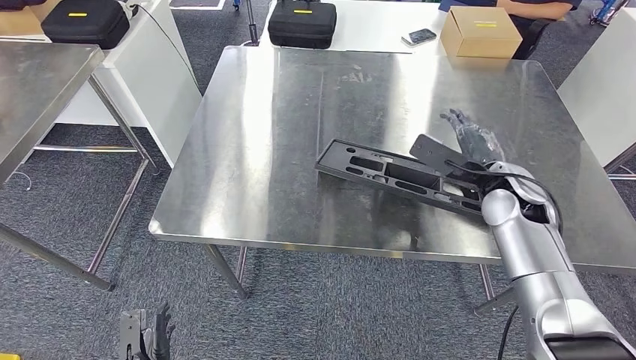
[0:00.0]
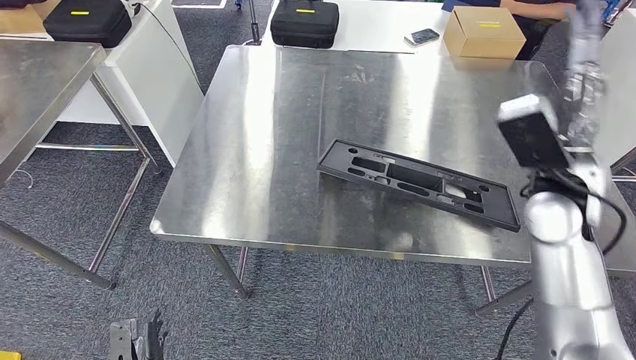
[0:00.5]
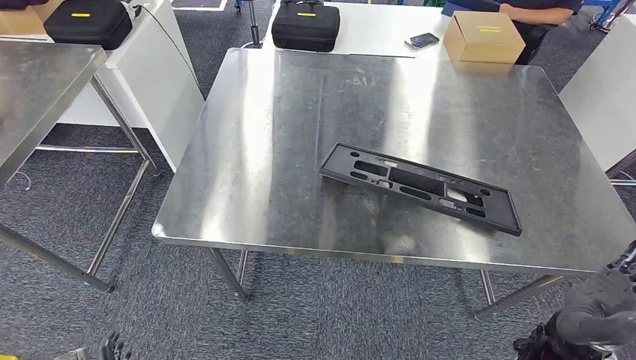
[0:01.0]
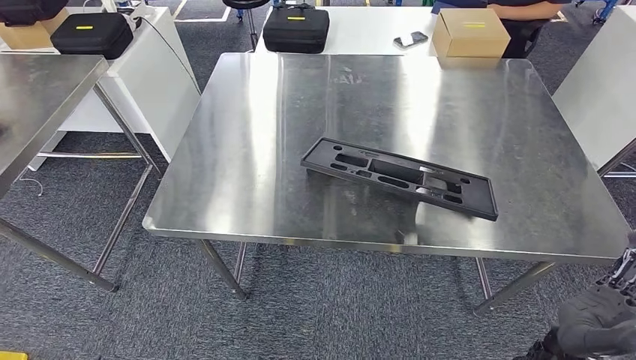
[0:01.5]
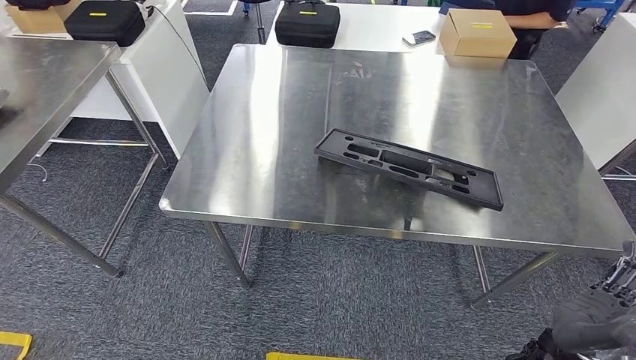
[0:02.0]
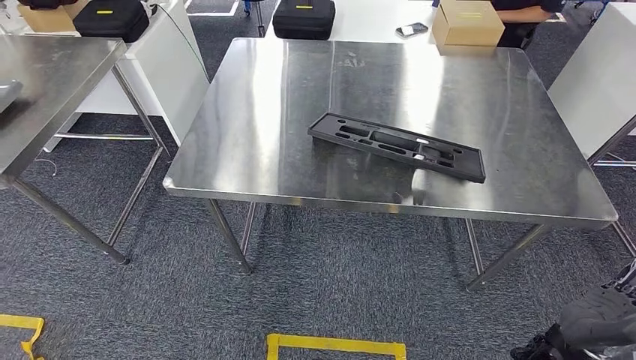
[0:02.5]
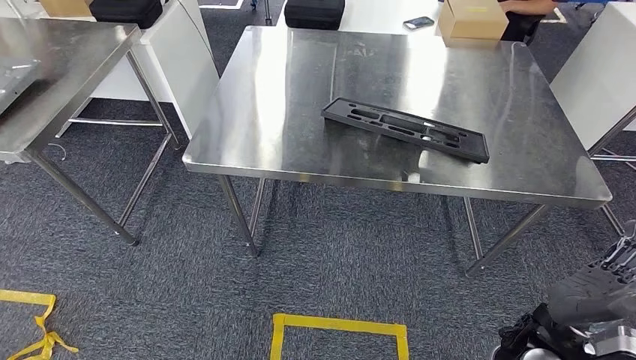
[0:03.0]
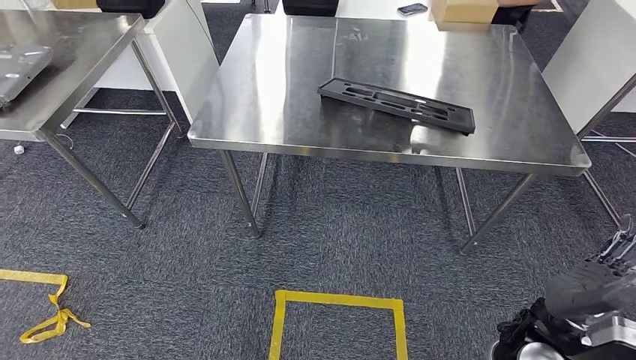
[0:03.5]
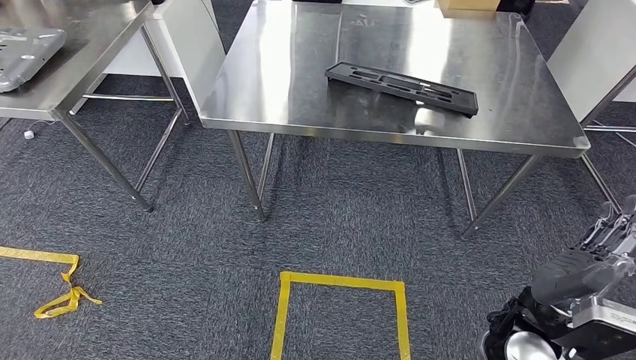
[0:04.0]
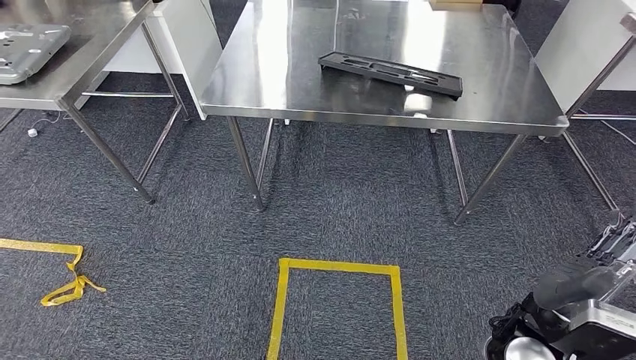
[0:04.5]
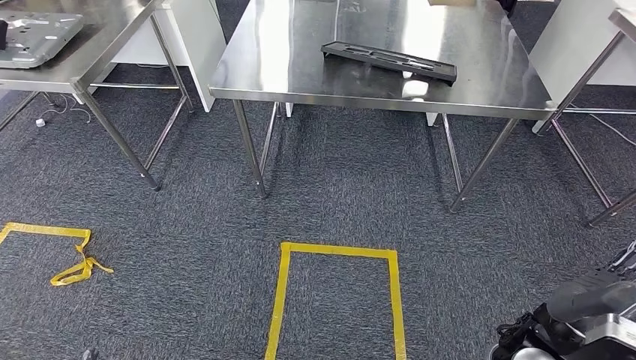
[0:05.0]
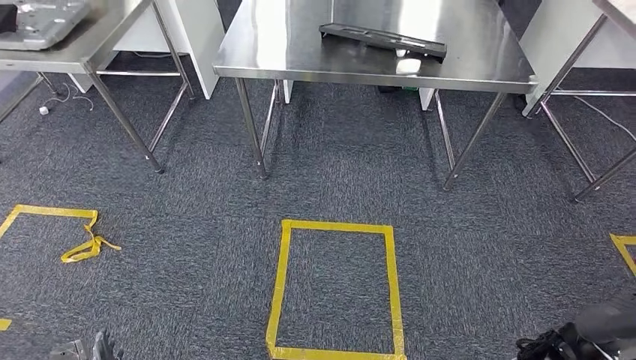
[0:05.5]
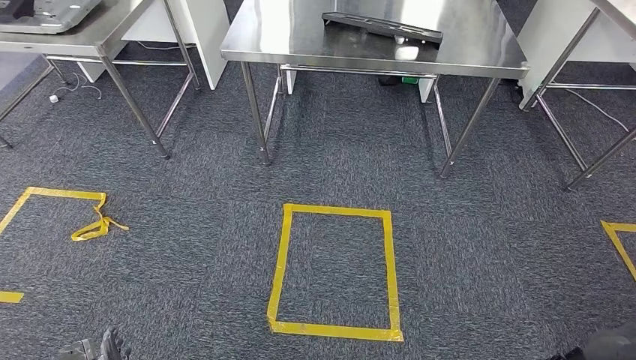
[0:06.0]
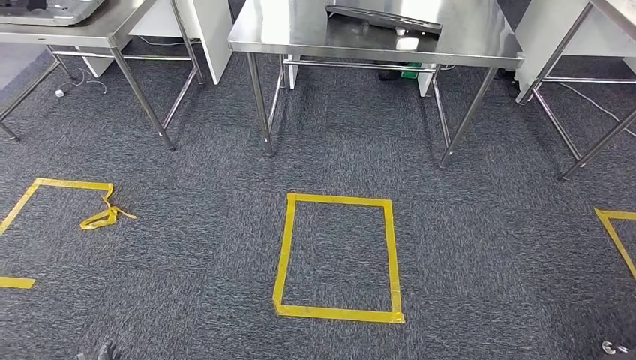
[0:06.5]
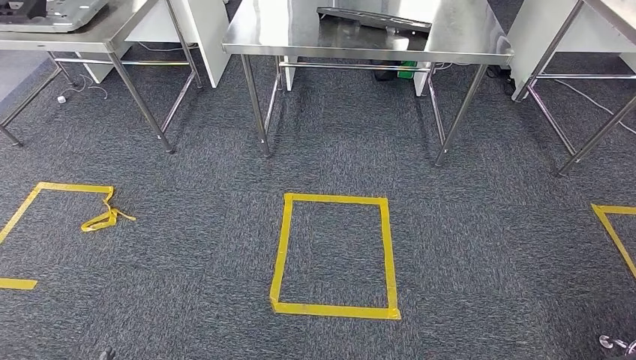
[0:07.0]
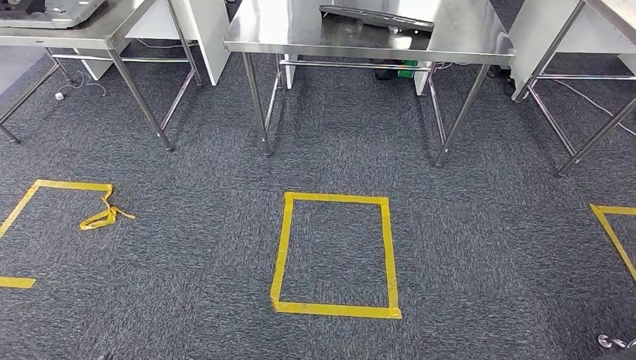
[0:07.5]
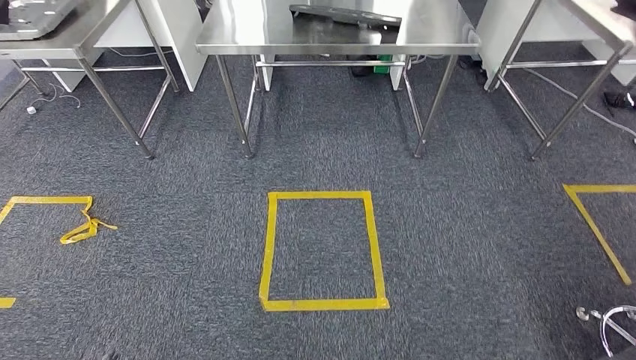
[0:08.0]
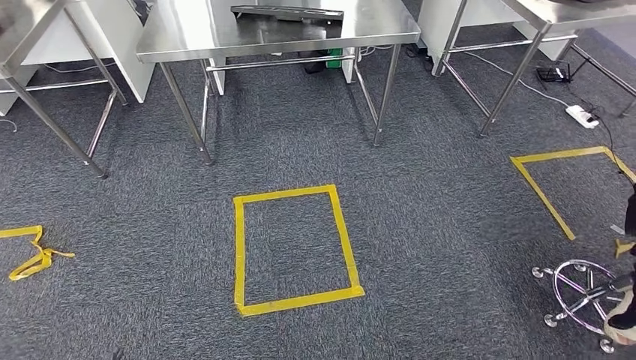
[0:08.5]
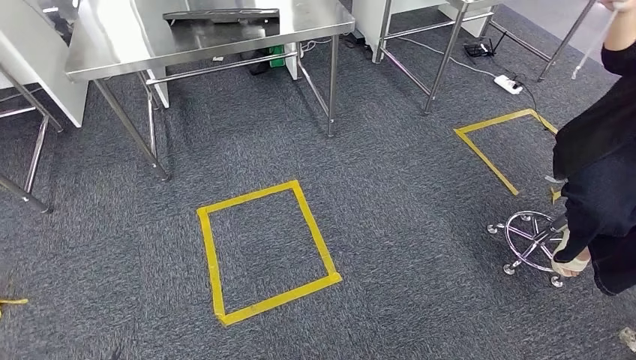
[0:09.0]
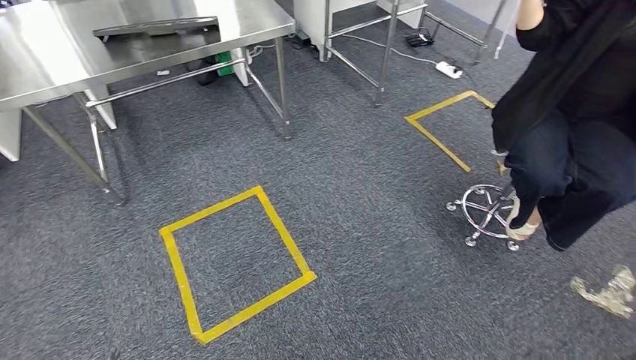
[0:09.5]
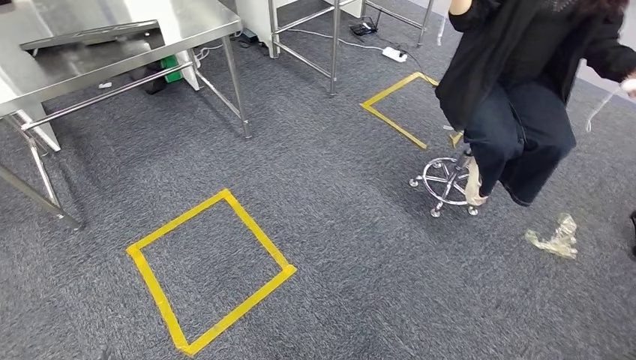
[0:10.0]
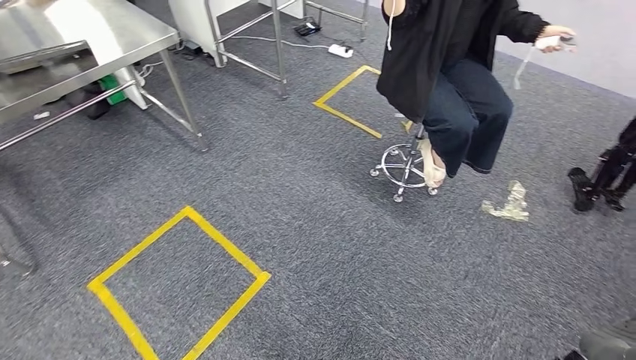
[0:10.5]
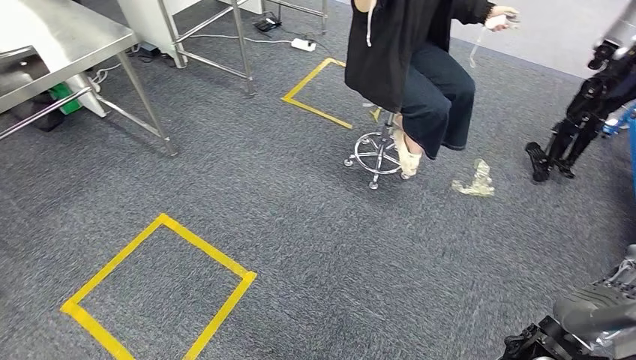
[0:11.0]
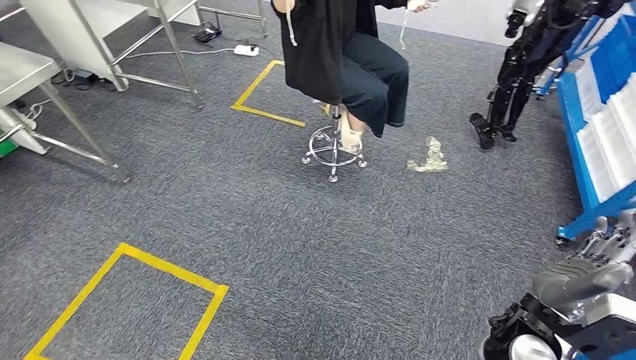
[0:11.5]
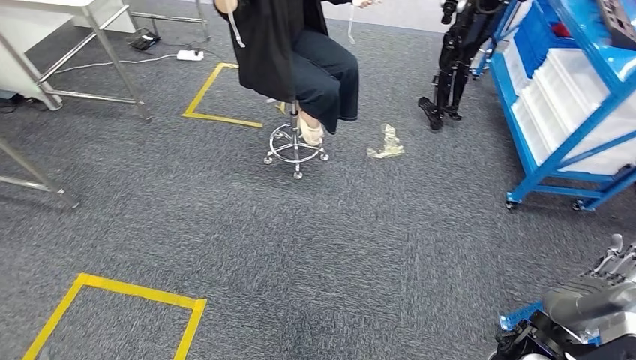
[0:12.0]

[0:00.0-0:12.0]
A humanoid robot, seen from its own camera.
Step, 0:00.0 to 0:03.0: Insert the large material into the corresponding slot on the workbench.

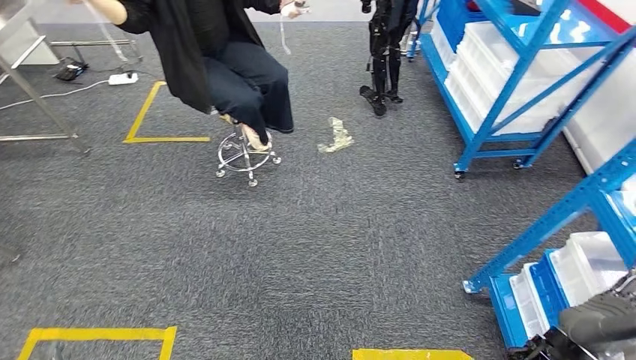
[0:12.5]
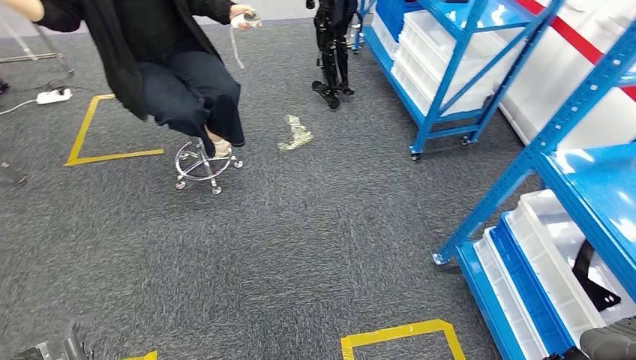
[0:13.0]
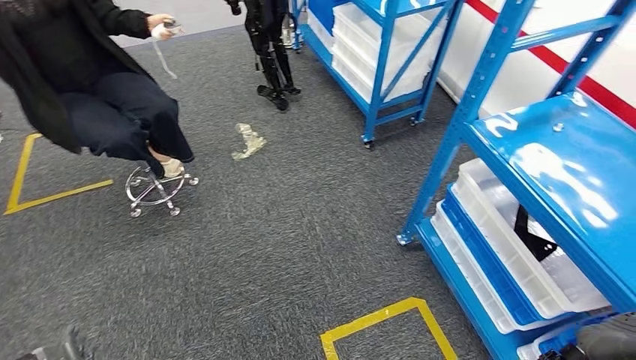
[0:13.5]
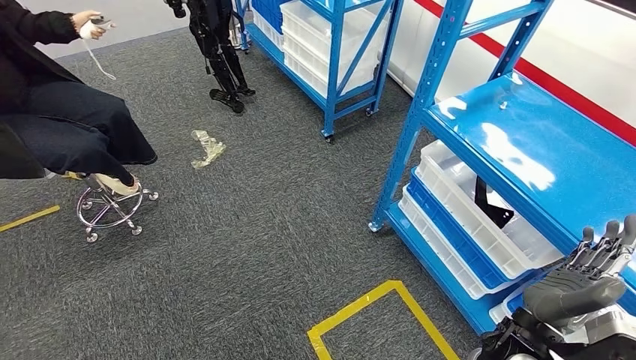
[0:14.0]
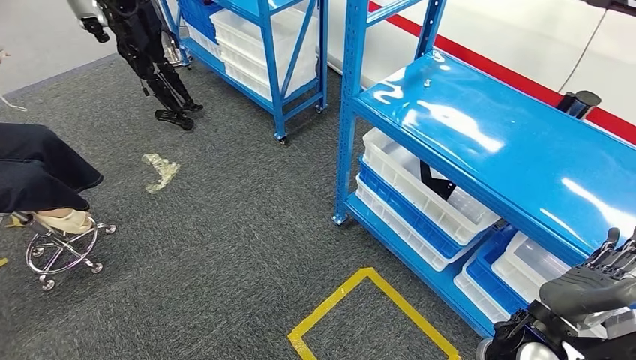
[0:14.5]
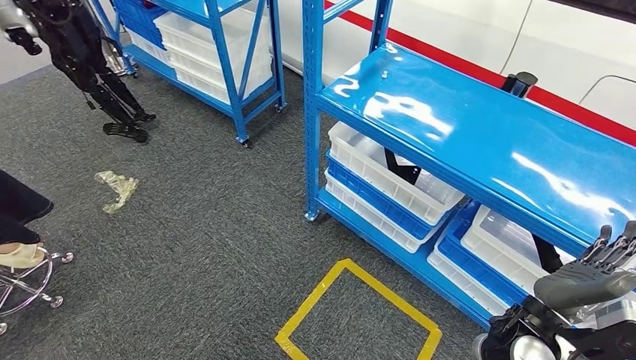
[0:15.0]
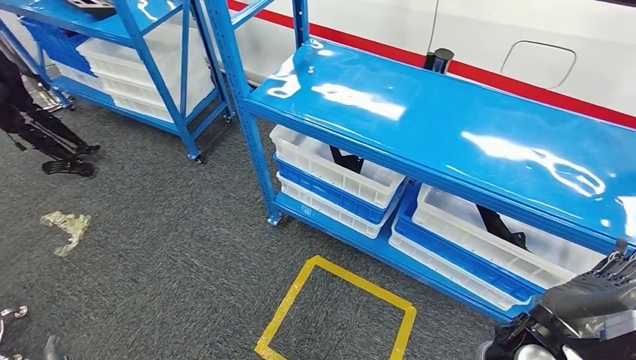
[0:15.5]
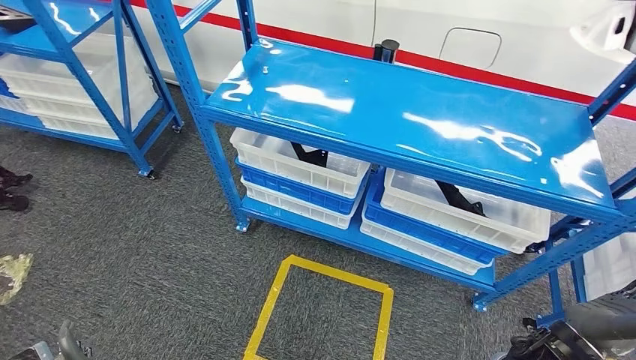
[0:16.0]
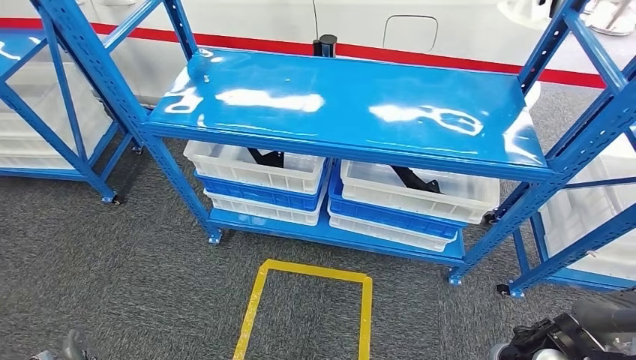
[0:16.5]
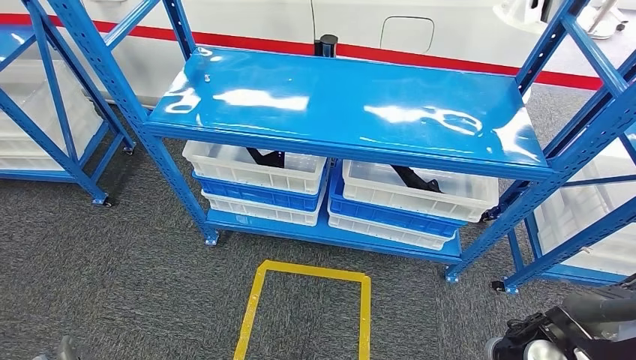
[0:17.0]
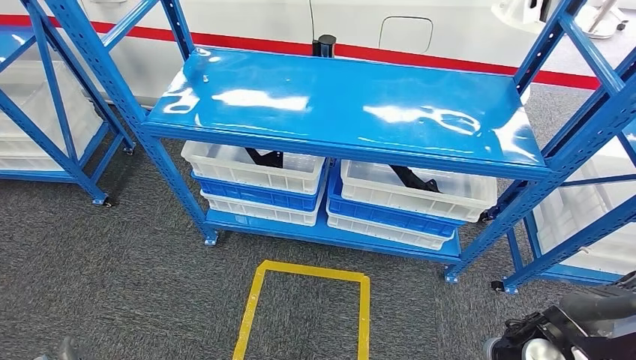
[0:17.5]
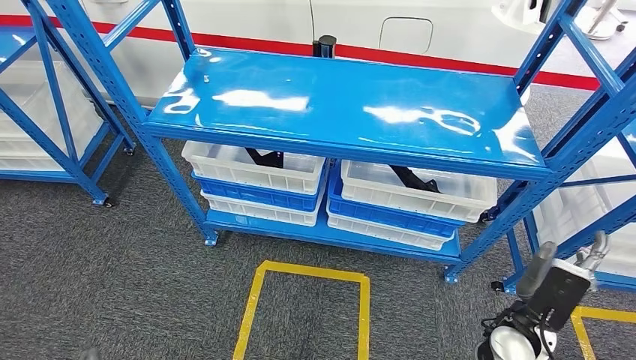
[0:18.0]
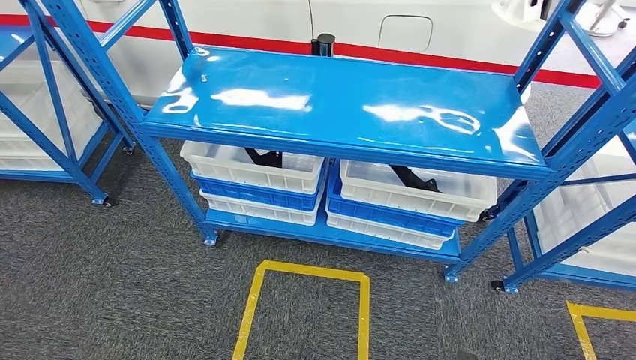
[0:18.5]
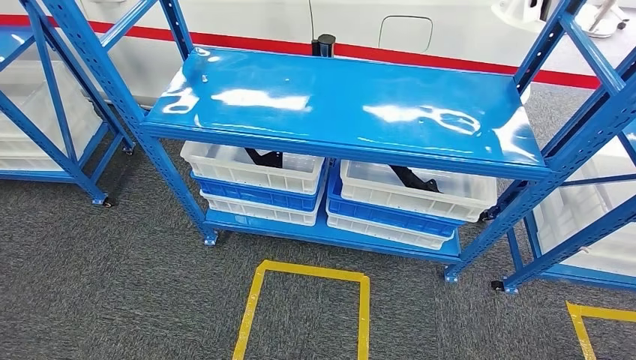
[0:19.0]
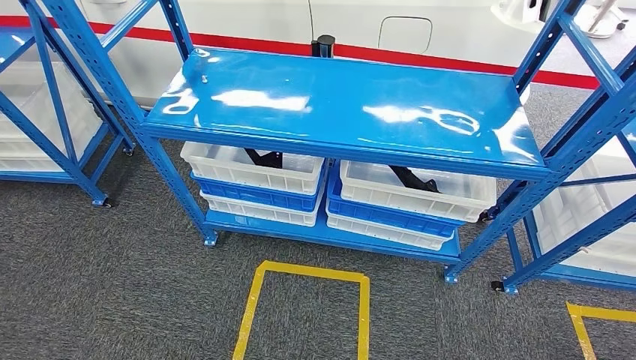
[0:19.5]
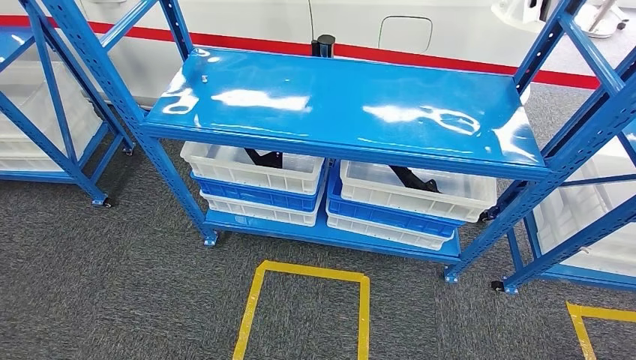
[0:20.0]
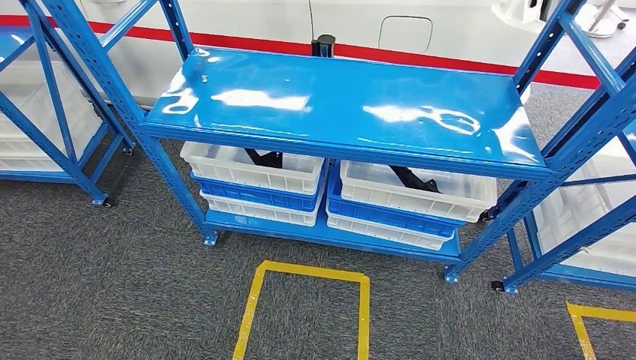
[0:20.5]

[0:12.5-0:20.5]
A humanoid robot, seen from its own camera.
Step, 0:12.5 to 0:20.5: Move to the initial position of the shelf.
0:16.5 to 0:18.5: The left hand travels downward and backward by approximately 15 cm. The right hand heads downward, covering about 25 cm.
0:18.5 to 0:20.5: The right hand moves backward, approximately 10 cm.
